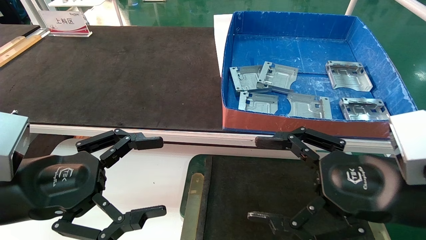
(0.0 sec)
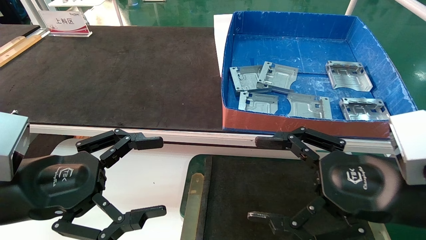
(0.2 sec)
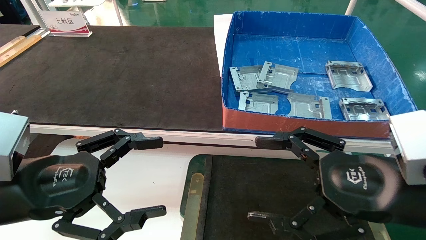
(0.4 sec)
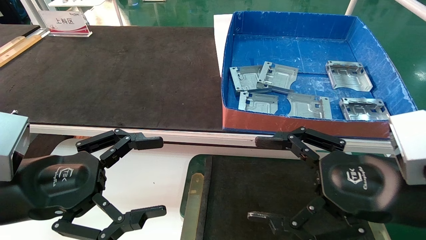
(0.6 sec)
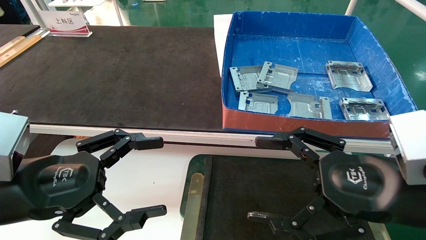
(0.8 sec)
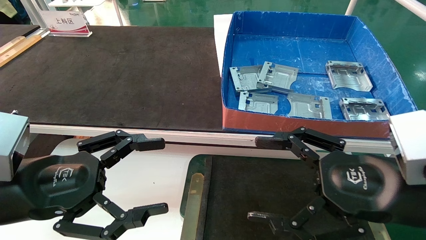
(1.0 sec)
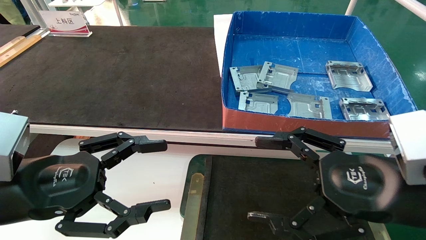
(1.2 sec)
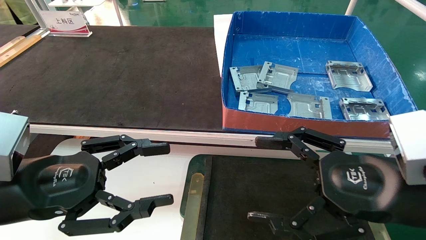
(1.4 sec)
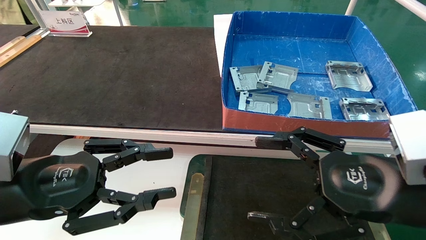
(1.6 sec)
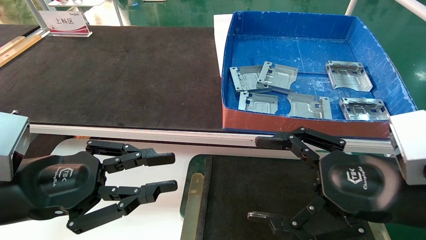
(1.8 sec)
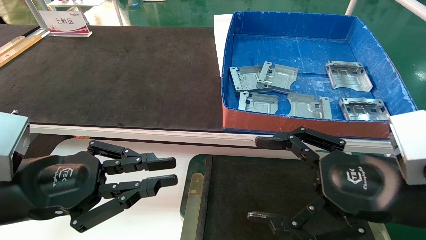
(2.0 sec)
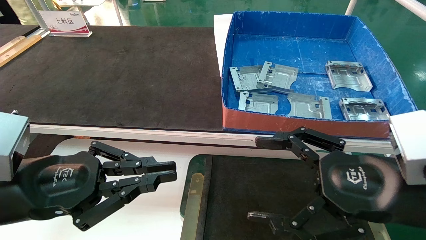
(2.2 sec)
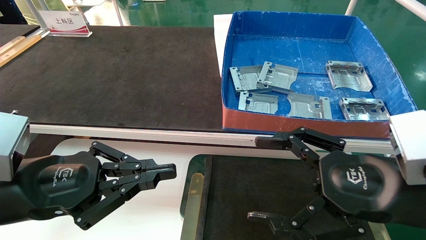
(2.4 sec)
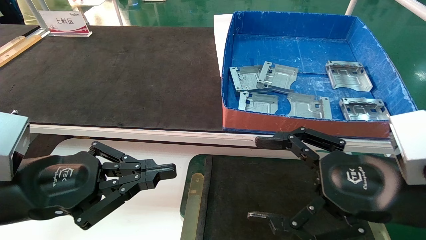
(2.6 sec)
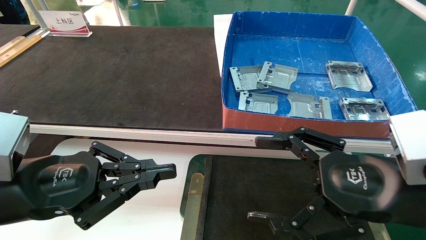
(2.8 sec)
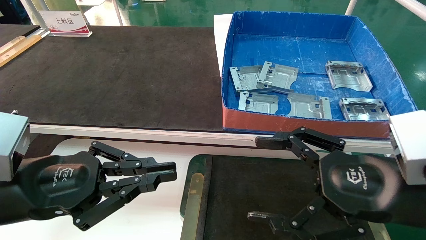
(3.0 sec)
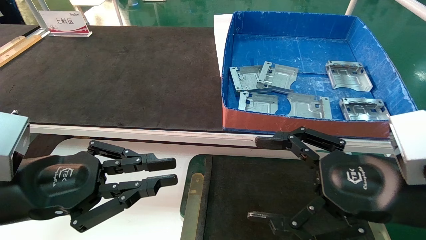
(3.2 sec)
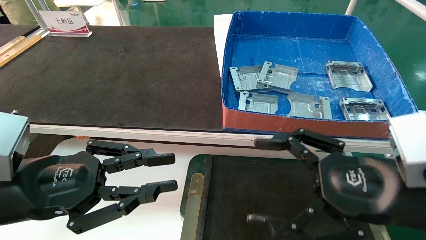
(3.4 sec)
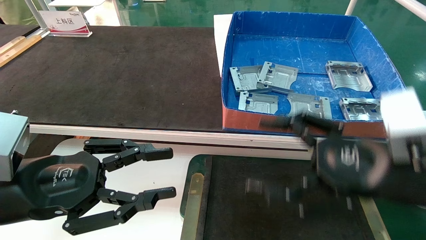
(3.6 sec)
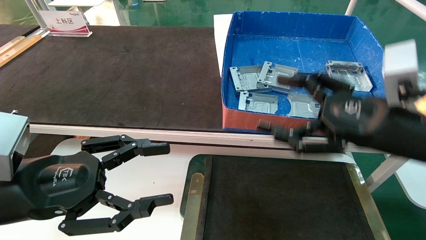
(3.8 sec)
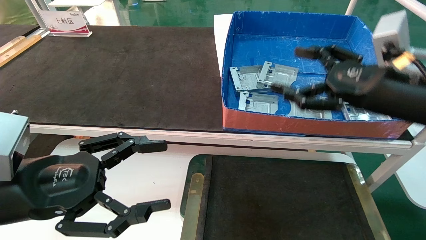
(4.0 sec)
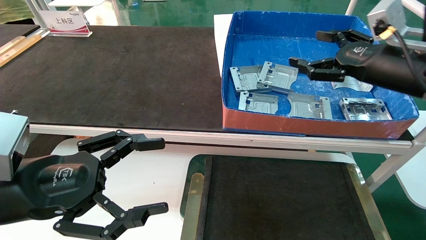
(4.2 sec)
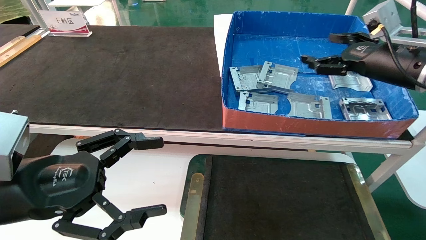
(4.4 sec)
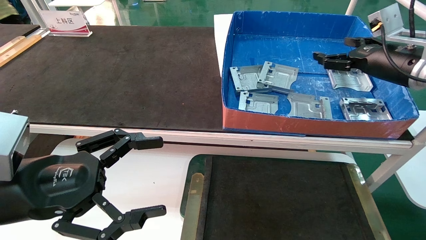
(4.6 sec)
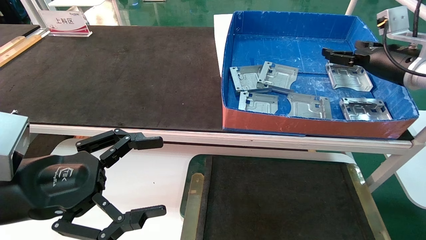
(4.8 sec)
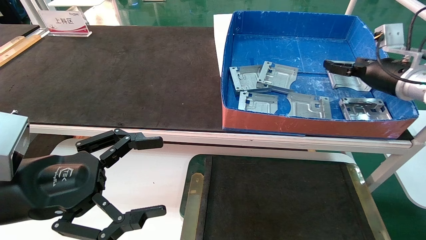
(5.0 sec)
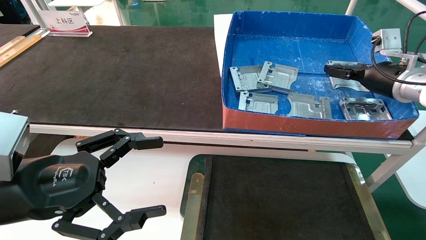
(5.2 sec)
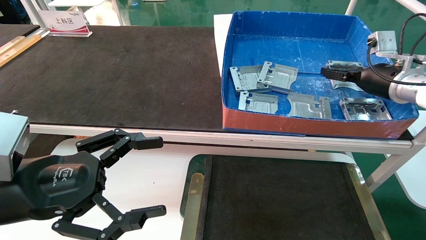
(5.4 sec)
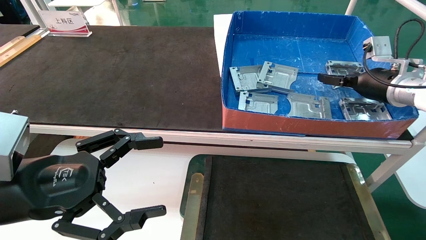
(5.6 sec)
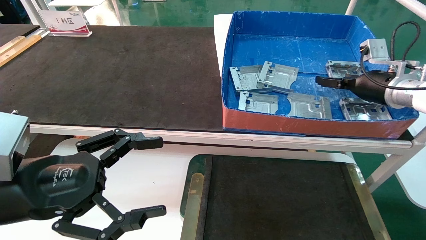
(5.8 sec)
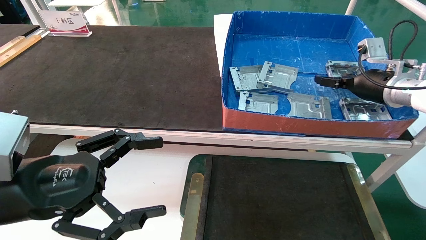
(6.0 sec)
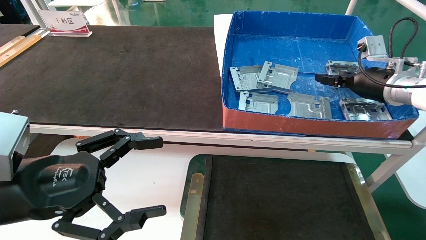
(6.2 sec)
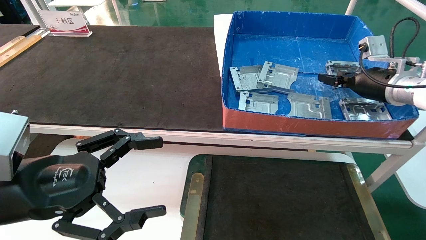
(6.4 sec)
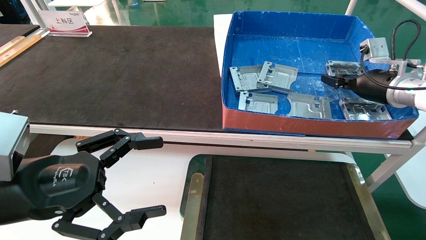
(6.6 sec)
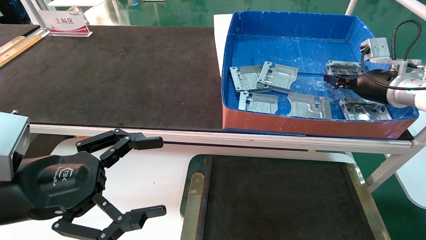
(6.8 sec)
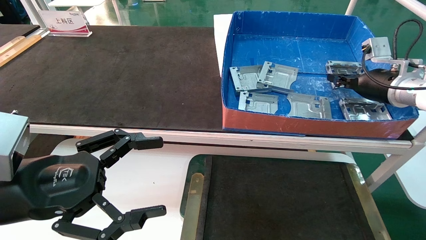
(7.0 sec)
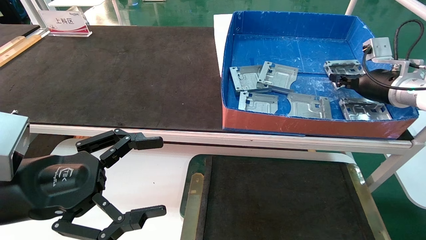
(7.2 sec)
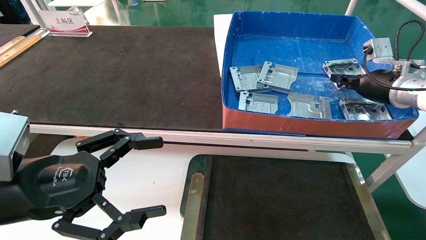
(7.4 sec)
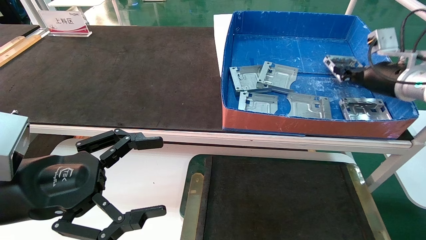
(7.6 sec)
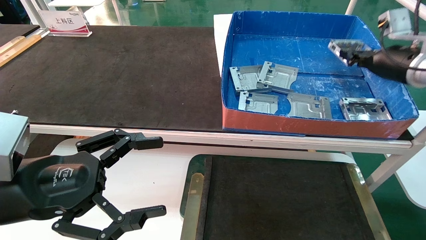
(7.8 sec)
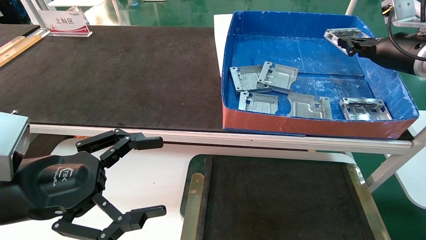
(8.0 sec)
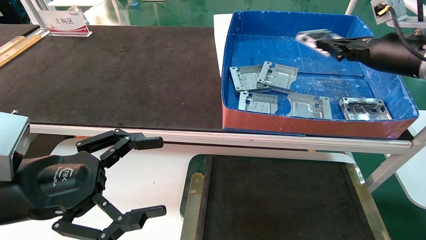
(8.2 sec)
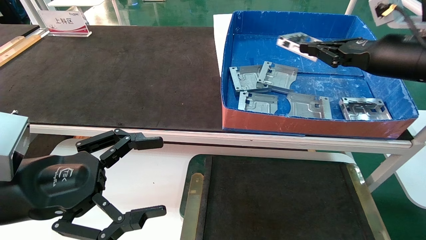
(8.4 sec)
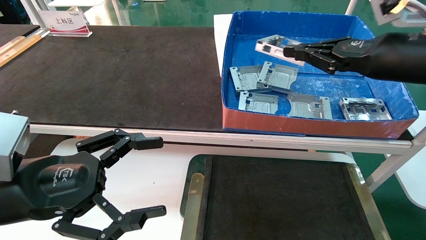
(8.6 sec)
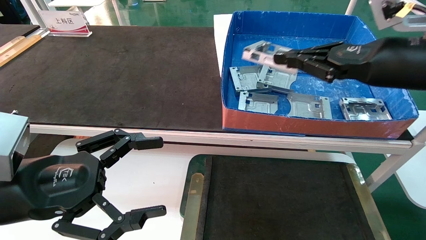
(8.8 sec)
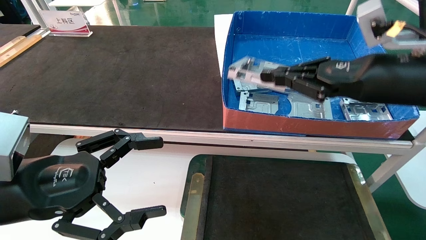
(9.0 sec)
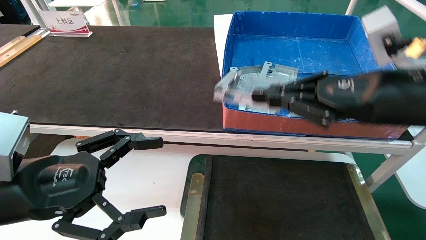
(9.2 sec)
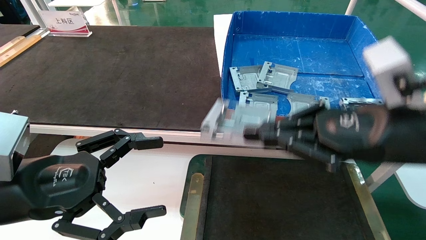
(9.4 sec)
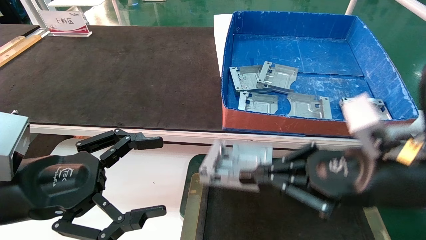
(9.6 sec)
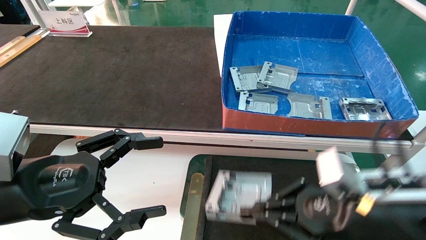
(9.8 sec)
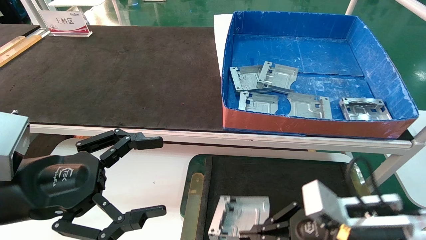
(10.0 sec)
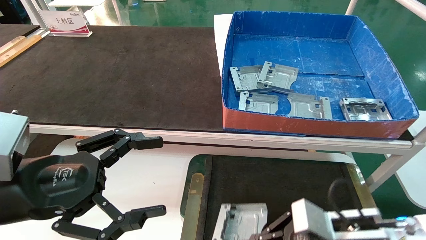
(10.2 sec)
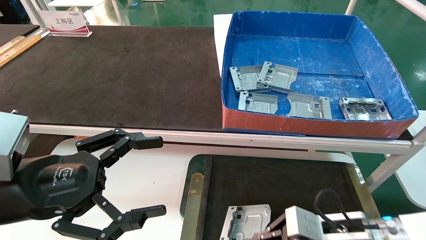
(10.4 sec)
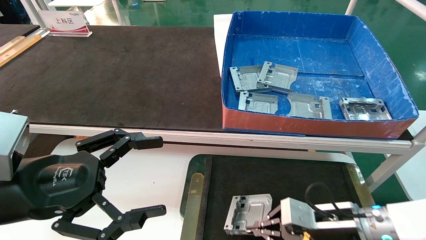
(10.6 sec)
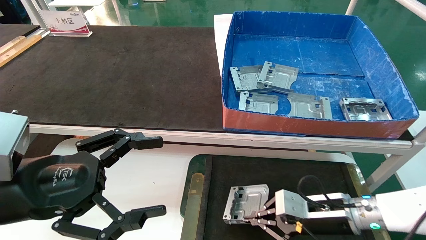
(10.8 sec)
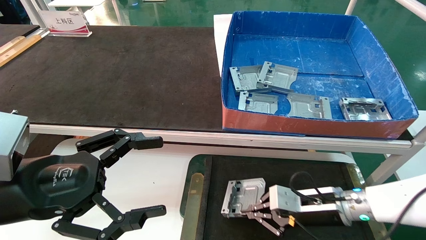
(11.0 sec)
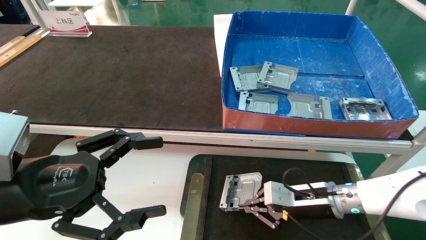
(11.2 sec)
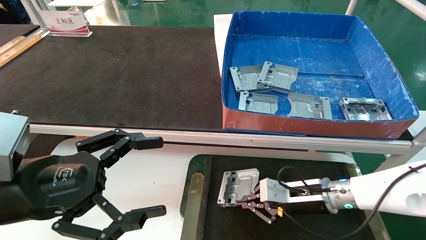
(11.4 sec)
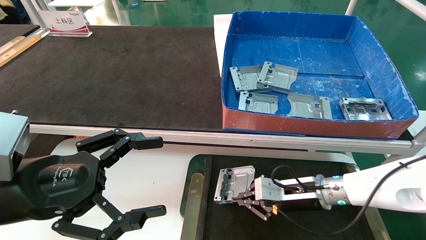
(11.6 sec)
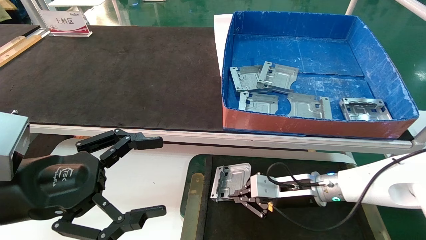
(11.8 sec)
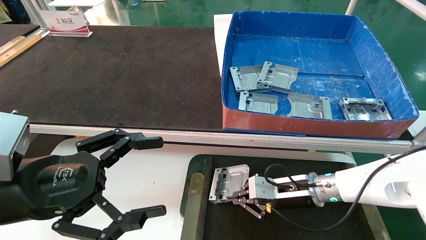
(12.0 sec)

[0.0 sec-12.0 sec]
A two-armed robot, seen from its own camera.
Task of the whole recording: pick up parts and place them into a black container.
Step, 3.8 sec to 7.2 sec: Pick up the hard drive bracket from the feeding area.
0.0 sec to 1.6 sec: The left gripper closes.
1.6 sec to 3.0 sec: The left gripper closes its fingers.
3.0 sec to 4.4 sec: The right gripper goes about 25 cm forward, upward and to the right; the left gripper opens.
4.4 sec to 6.0 sec: The right gripper heads forward, covering roughly 5 cm.
6.0 sec to 7.6 sec: The right gripper closes up.
7.6 sec to 9.0 sec: The right gripper travels backward and to the left by some 20 cm.
9.0 sec to 10.4 sec: The right gripper travels downward by roughly 25 cm.
10.4 sec to 12.0 sec: The right gripper shifts about 10 cm forward.

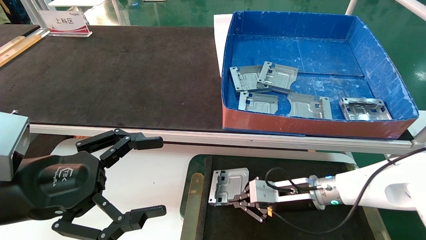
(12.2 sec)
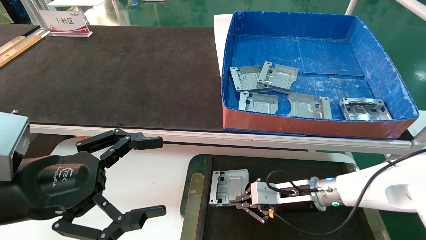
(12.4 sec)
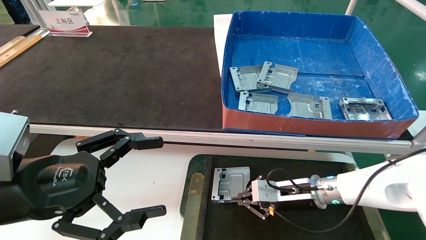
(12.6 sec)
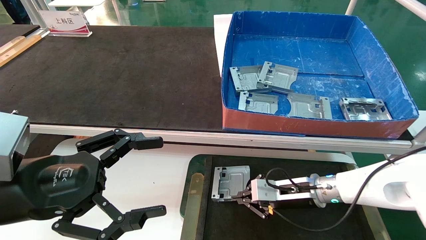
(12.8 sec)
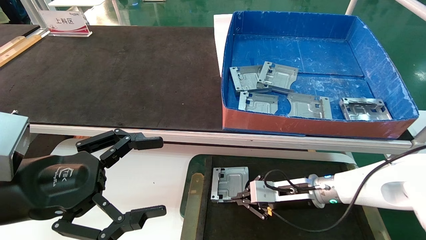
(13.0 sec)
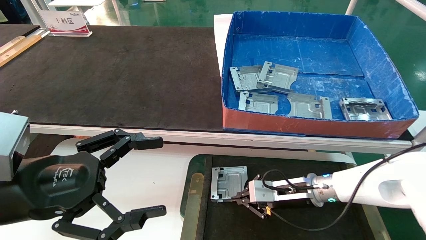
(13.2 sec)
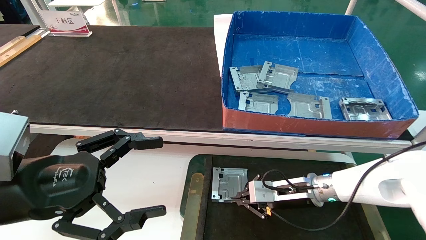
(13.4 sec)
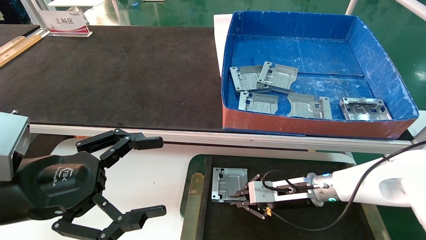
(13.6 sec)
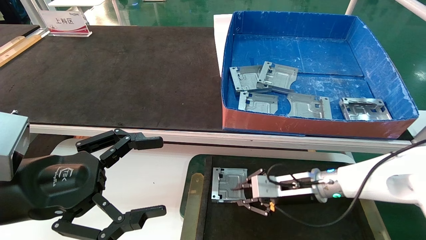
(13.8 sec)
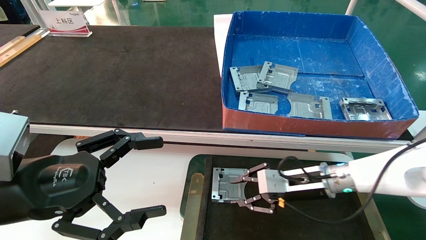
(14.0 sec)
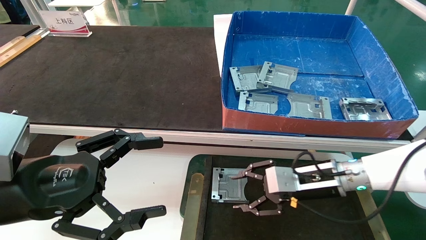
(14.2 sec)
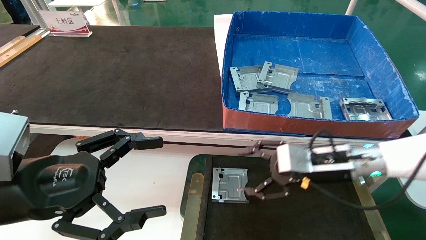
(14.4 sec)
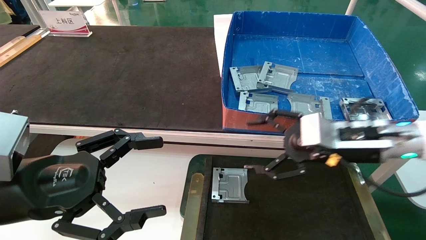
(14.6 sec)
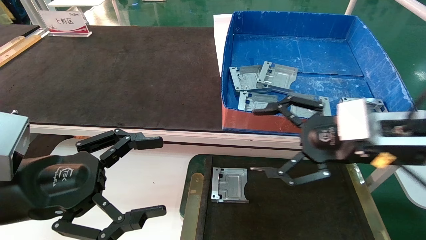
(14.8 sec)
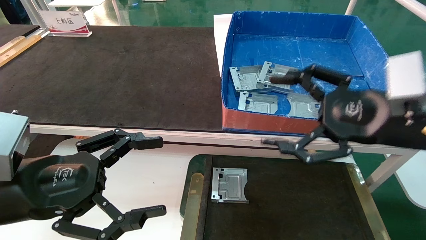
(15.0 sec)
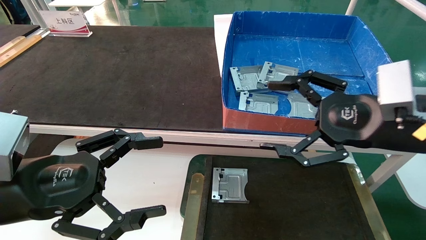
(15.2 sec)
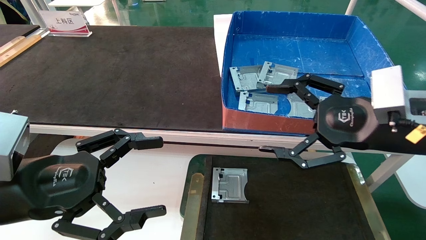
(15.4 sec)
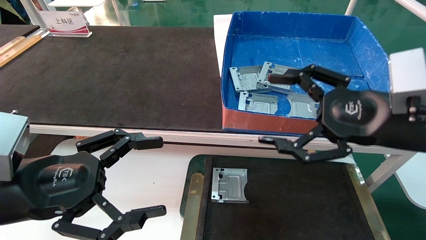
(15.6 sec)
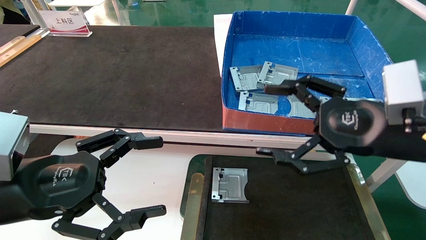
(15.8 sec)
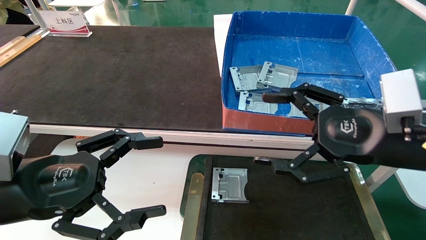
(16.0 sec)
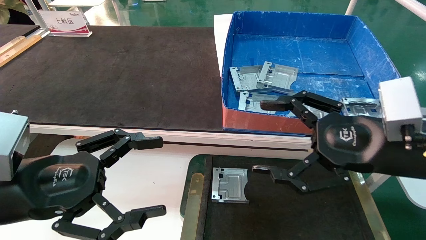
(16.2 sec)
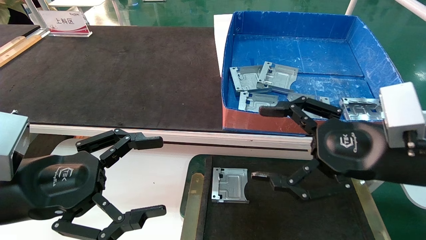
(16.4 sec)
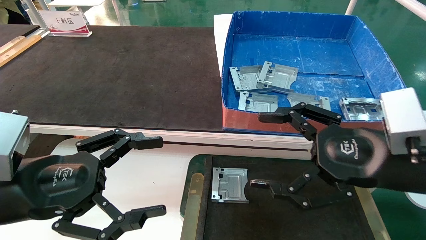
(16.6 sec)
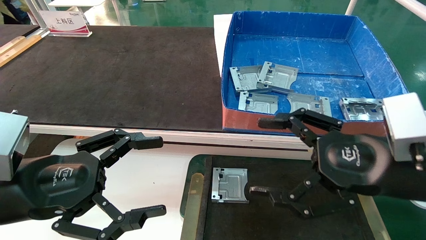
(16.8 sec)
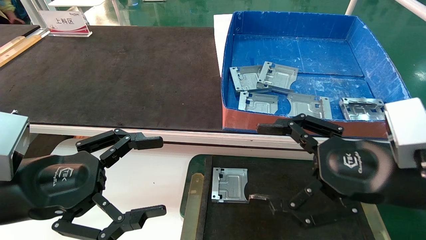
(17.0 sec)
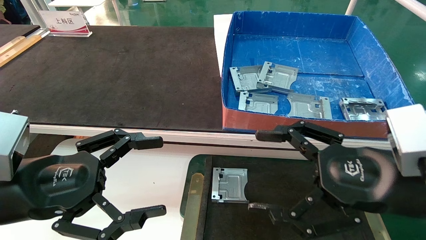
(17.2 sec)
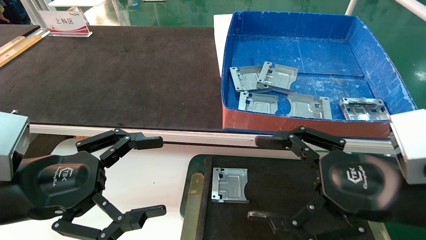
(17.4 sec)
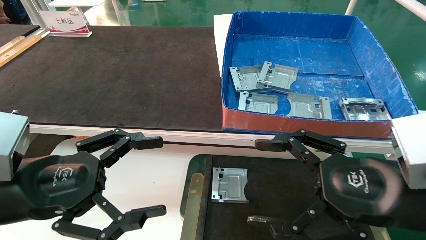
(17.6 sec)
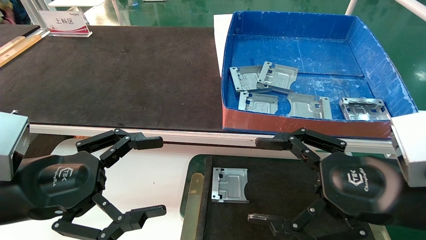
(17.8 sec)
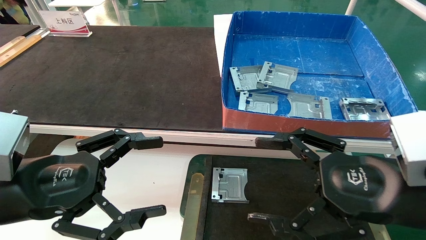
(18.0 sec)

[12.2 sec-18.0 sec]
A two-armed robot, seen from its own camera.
Task of the whole recording: pick up parts and place them into a black container.
12.2 sec to 13.6 sec: The two grippers keep their place.
13.6 sec to 15.0 sec: The right gripper shifts approximately 25 cm upward and backward, and opens its fingers.
15.0 sec to 16.6 sec: The right gripper changes place by about 5 cm.
16.6 sec to 18.0 sec: The grippers move only a little.
